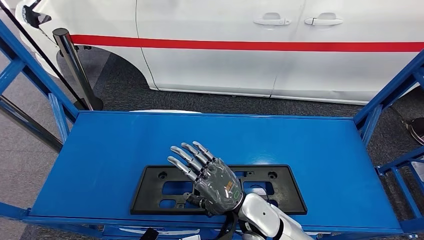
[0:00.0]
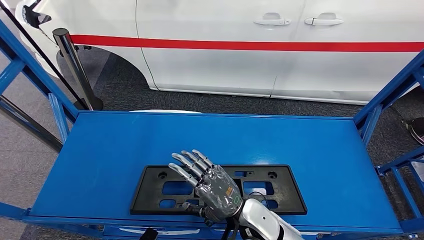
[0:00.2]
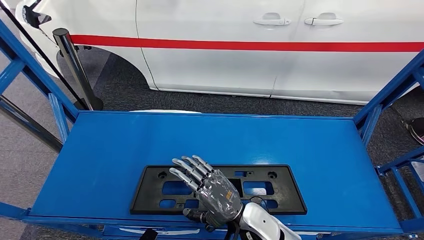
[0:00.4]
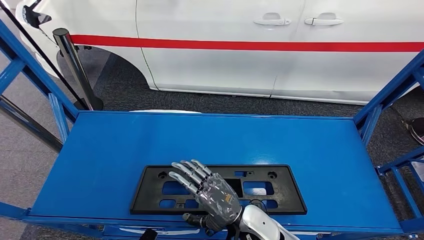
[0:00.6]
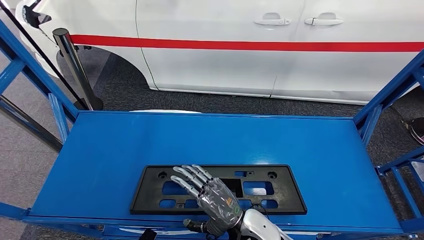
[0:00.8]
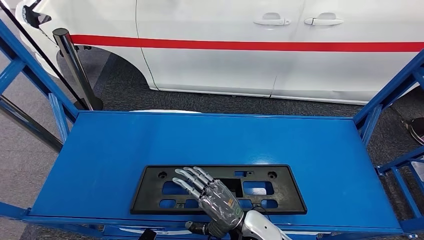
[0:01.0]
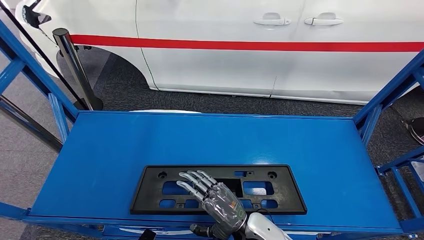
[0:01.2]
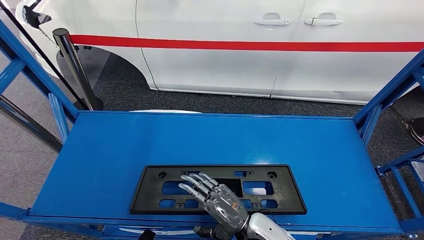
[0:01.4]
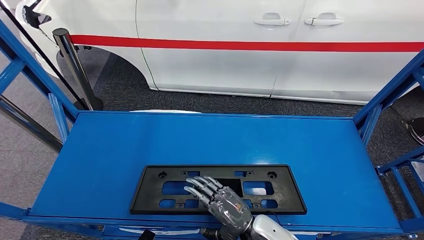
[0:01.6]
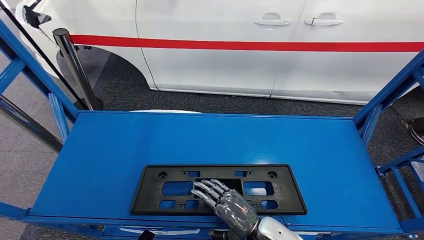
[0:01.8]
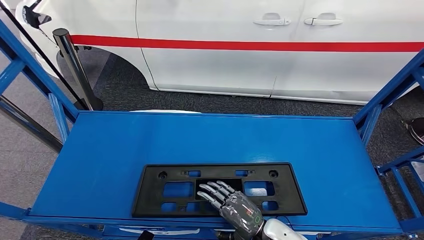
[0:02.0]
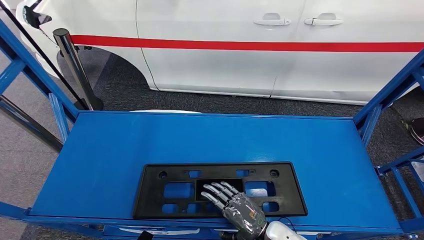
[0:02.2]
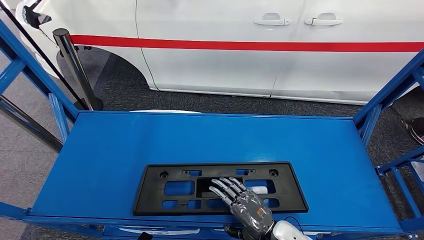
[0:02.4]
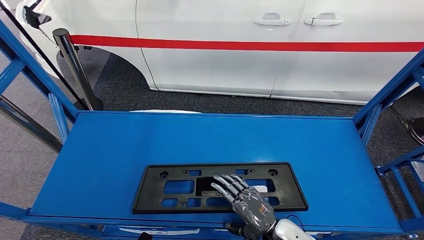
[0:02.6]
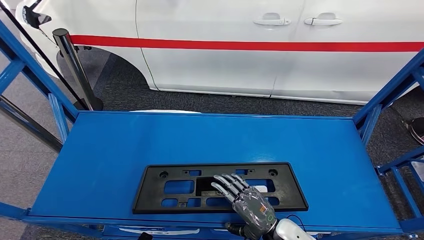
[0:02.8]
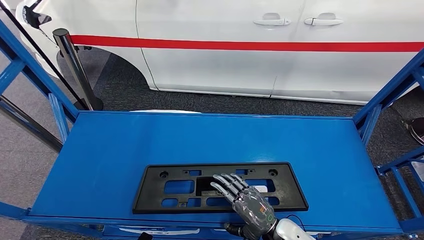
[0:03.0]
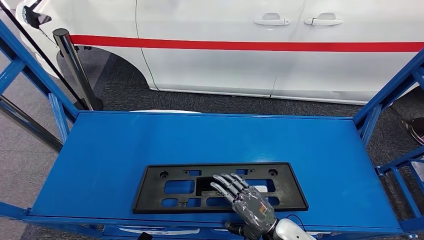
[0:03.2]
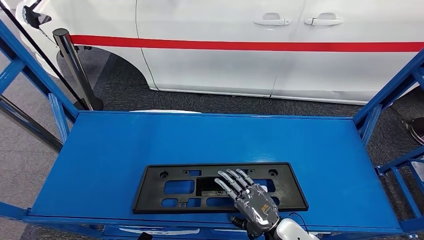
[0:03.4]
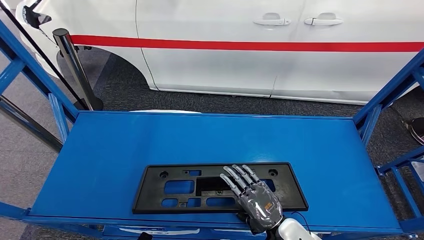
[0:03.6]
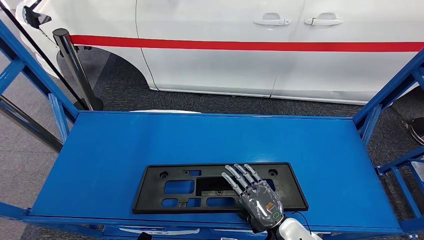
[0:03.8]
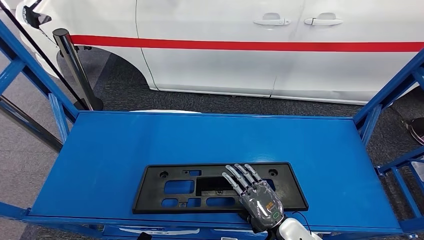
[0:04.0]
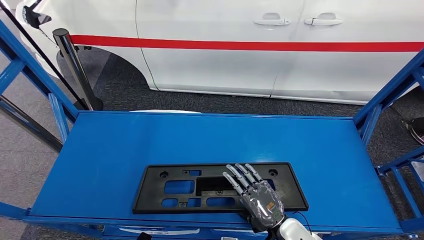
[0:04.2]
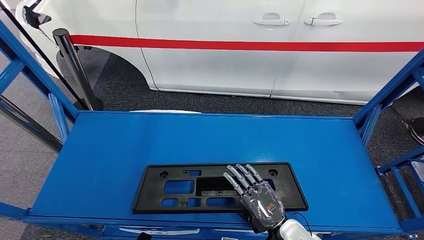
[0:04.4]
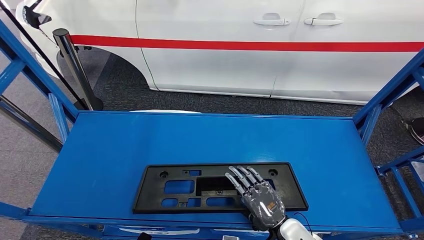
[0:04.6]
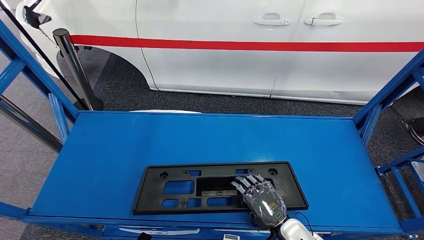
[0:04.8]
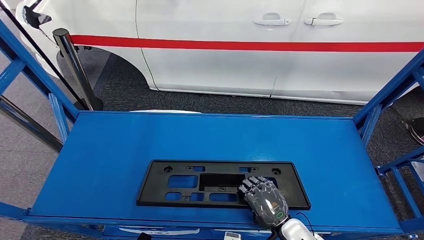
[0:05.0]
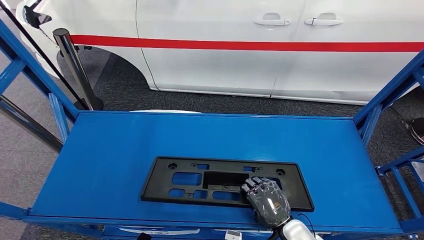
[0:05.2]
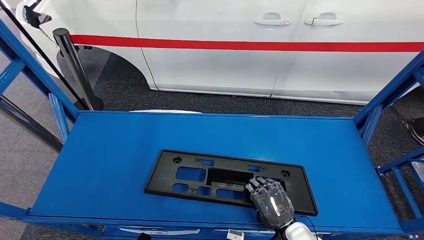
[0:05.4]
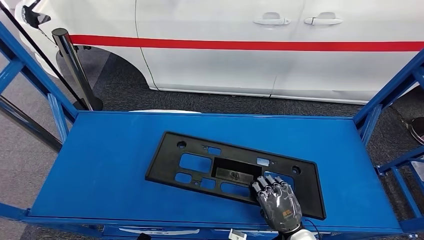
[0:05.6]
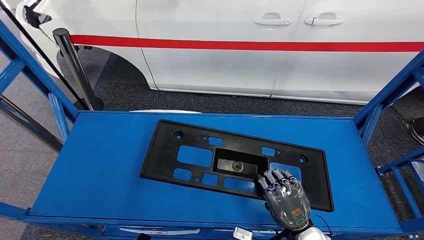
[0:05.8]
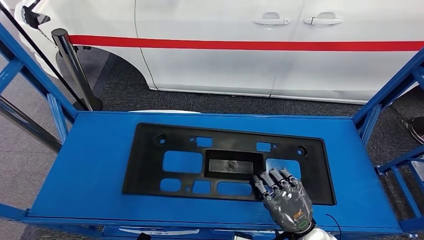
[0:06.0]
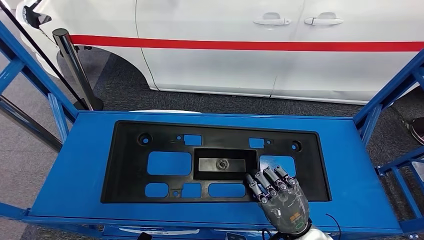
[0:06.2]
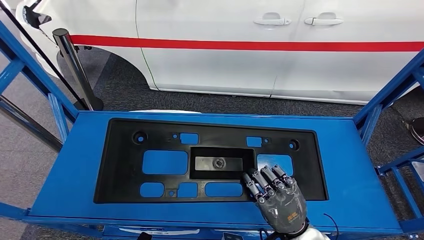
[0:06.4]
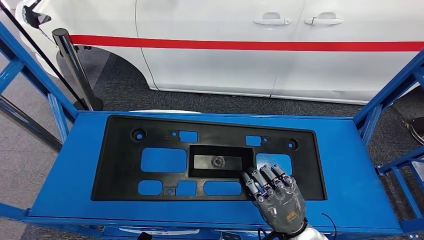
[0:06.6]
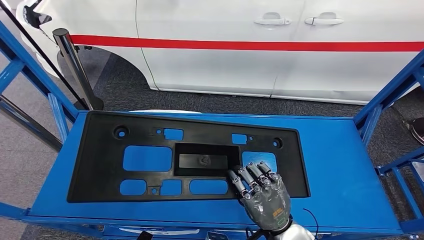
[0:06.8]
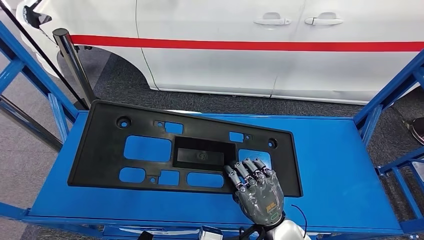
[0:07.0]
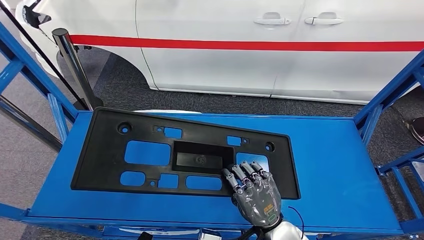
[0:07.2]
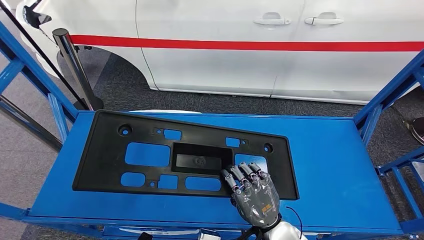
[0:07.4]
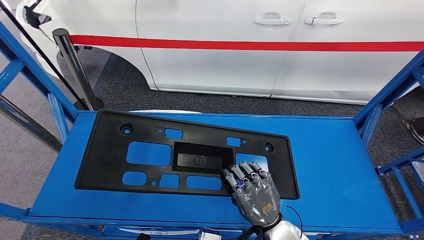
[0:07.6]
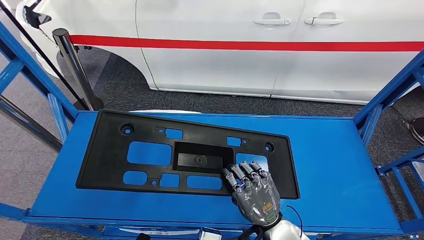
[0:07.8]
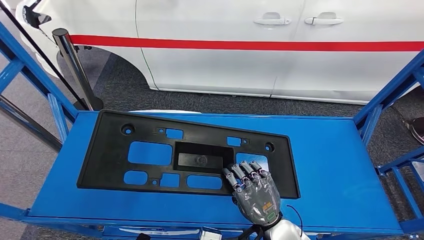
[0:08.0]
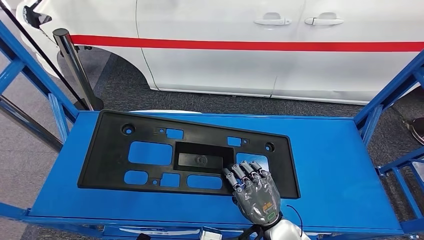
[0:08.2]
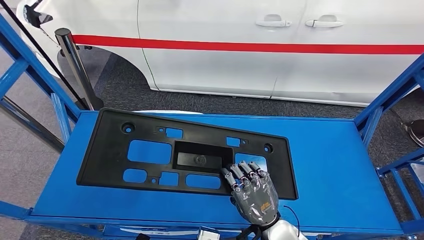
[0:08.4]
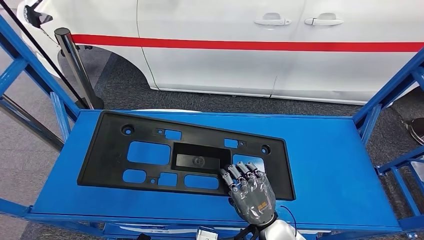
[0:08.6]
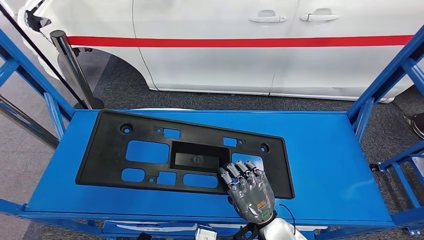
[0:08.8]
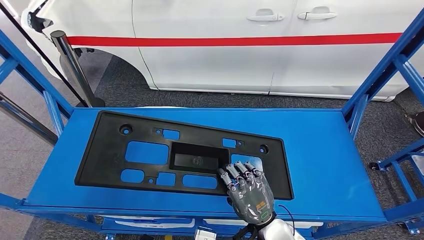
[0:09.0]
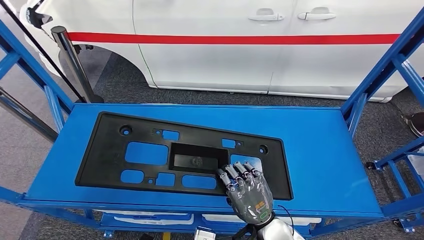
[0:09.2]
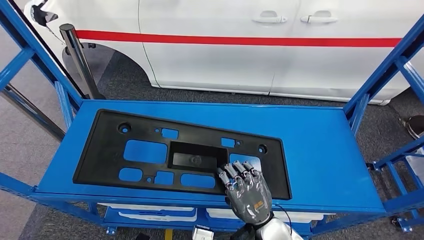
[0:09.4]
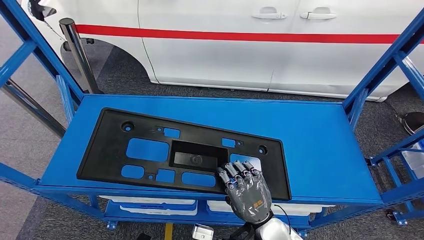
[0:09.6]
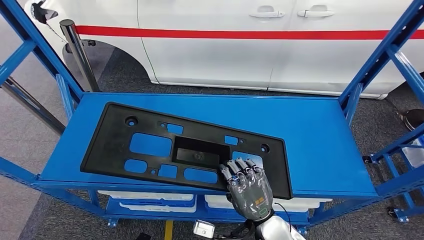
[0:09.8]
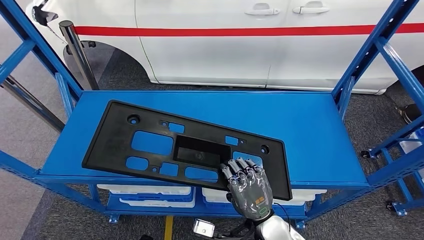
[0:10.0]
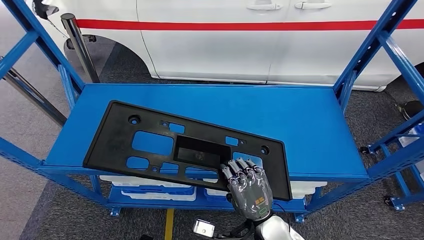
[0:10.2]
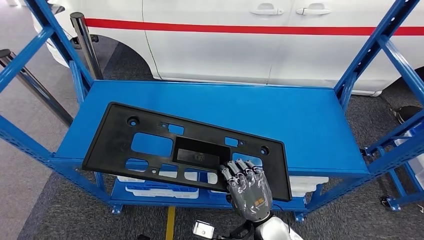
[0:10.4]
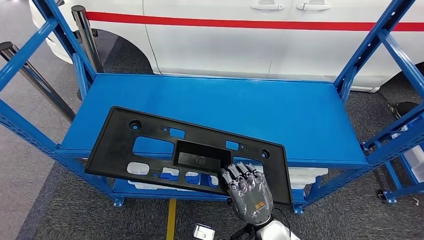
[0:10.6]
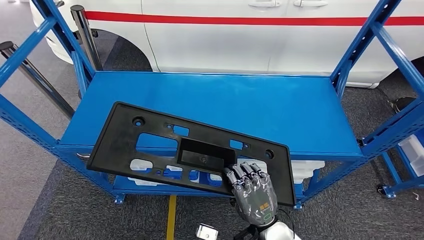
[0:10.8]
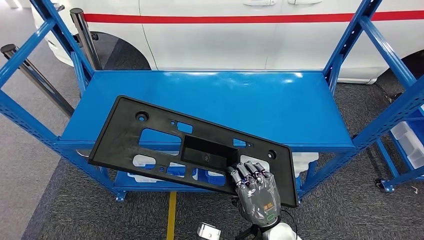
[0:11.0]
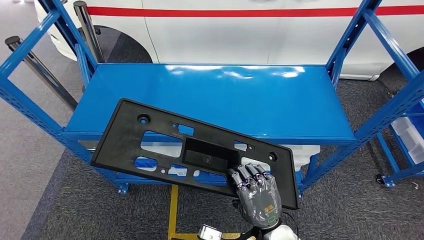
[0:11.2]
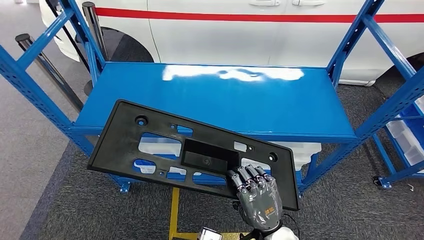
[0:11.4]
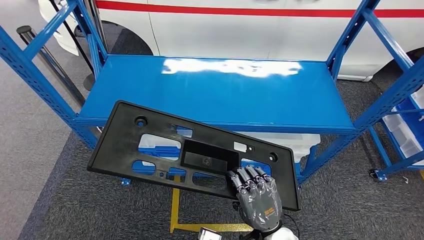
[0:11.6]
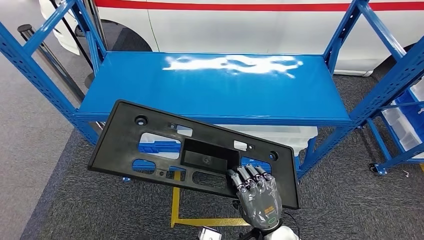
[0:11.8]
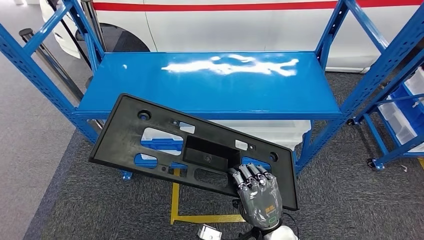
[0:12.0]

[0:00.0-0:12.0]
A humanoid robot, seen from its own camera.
Step, 0:00.0 to 0:06.4: Pick up the large material from the shelf.
0:00.0 to 0:01.6: The right hand heads downward, covering approximately 5 cm.
0:01.6 to 0:03.0: The right hand moves to the right, approximately 5 cm.
0:04.4 to 0:06.0: The right hand changes place by some 5 cm.
0:06.0 to 0:07.6: The right hand is displaced to the left by roughly 10 cm.

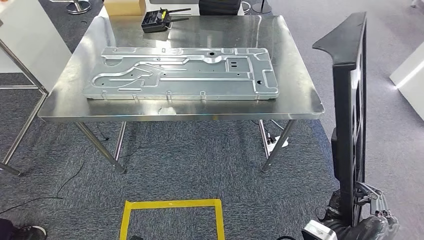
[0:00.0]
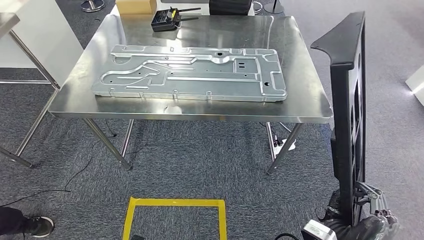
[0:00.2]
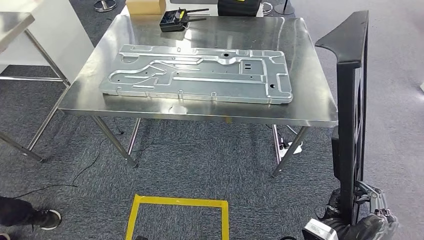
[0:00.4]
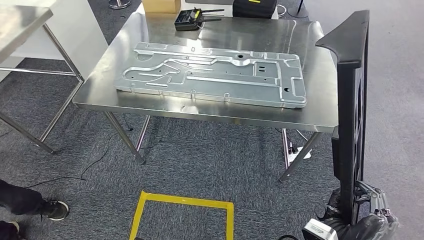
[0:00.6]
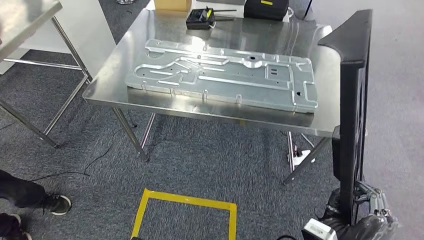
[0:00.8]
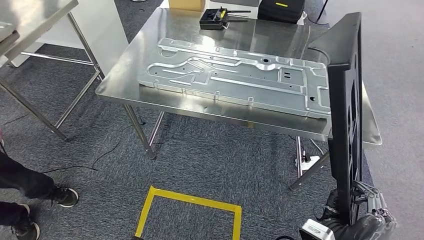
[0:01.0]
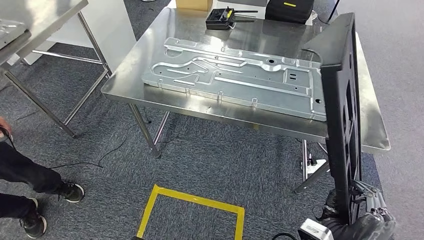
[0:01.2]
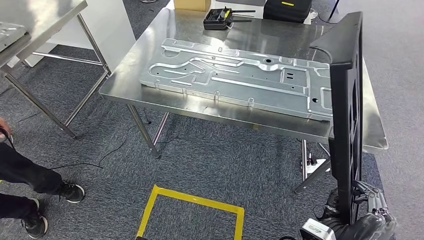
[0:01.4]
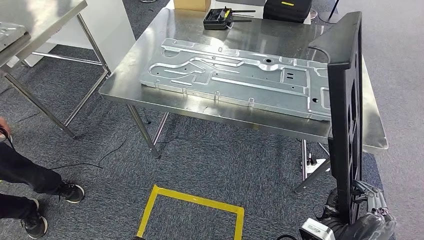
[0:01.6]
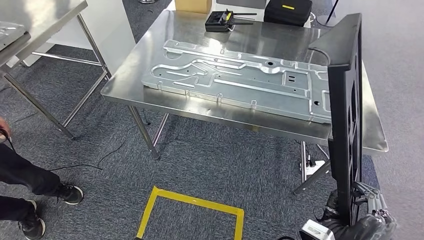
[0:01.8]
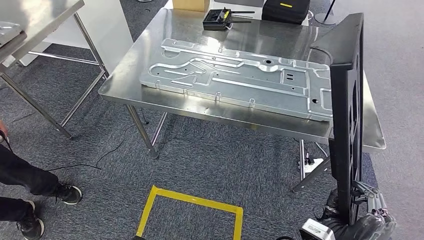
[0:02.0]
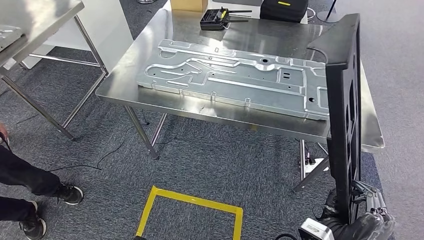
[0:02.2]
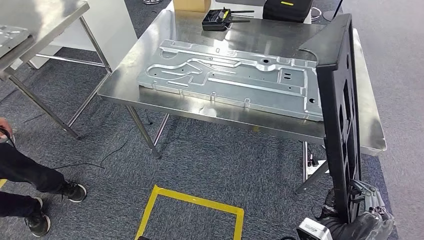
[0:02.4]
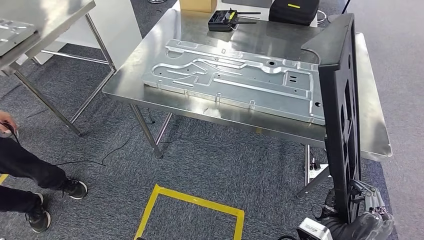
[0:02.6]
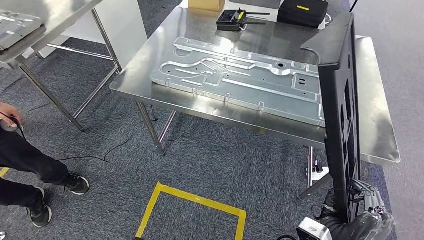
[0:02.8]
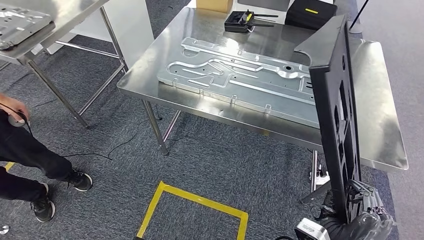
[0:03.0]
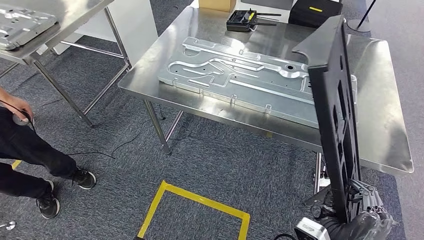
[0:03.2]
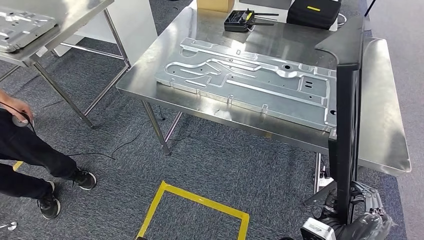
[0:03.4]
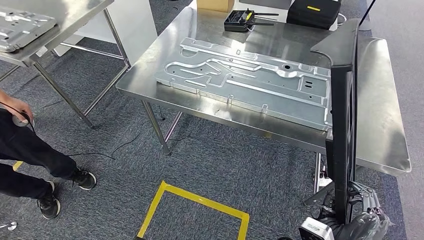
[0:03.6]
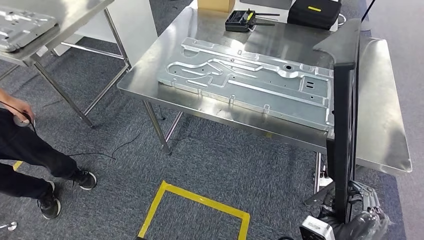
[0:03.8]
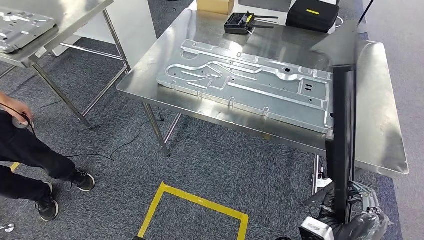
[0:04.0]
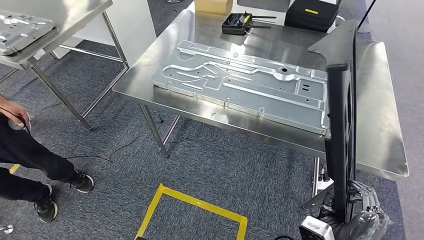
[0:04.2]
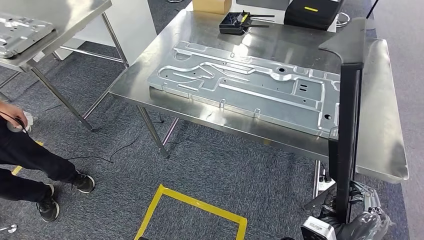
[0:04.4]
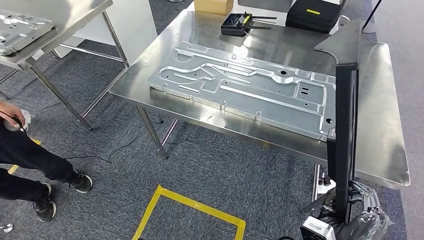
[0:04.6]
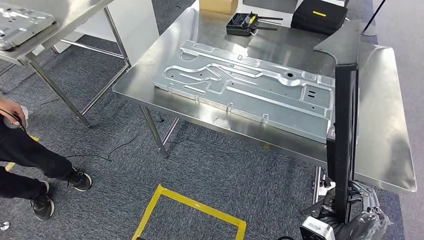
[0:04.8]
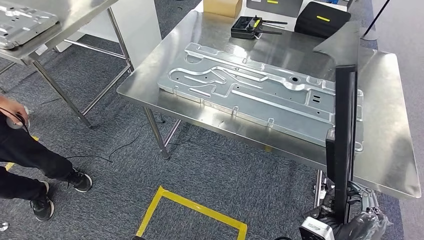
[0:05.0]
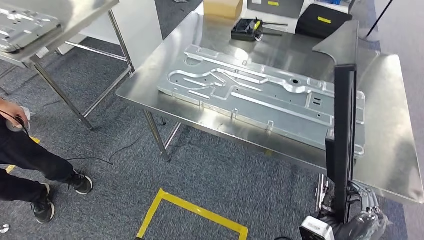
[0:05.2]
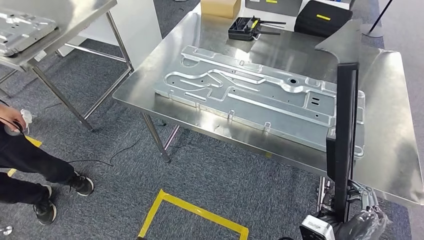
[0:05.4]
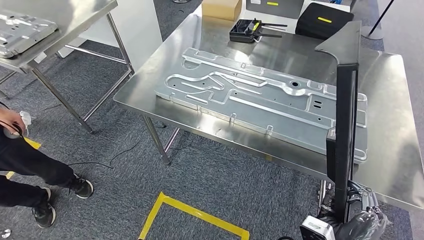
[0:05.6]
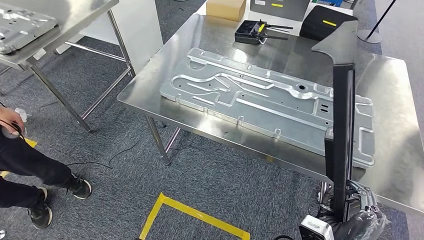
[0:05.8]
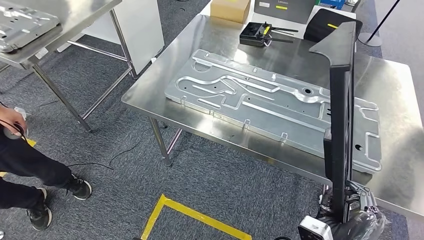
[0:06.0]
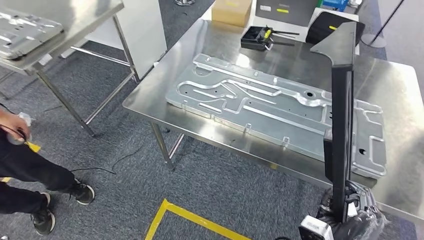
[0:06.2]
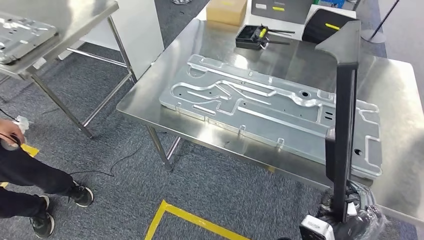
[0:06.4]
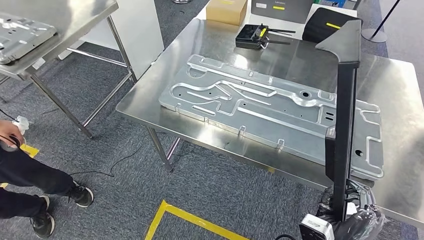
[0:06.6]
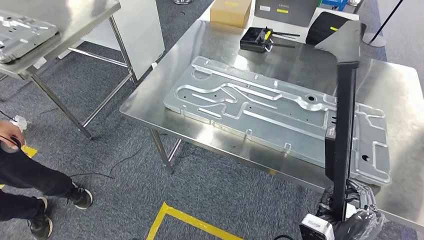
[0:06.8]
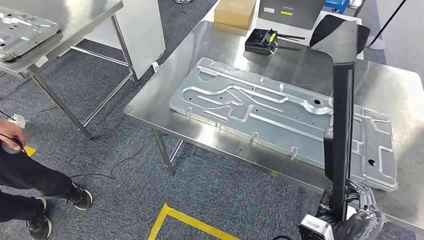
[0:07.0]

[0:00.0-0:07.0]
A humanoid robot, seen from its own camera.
Step, 0:00.0 to 0:04.4: Move the large material to the workbench.
